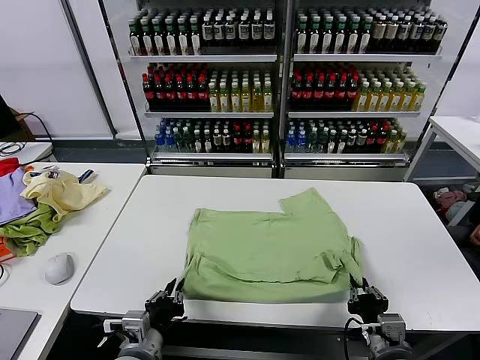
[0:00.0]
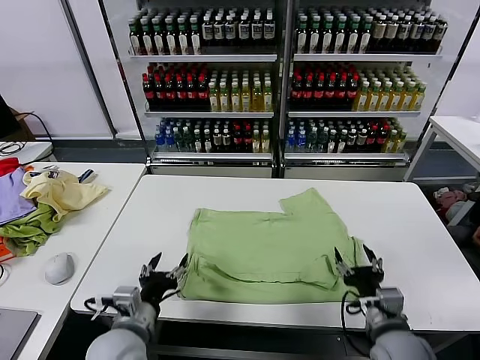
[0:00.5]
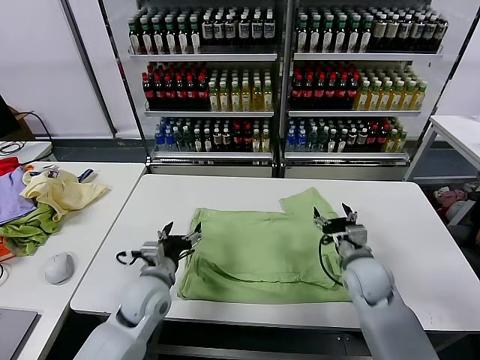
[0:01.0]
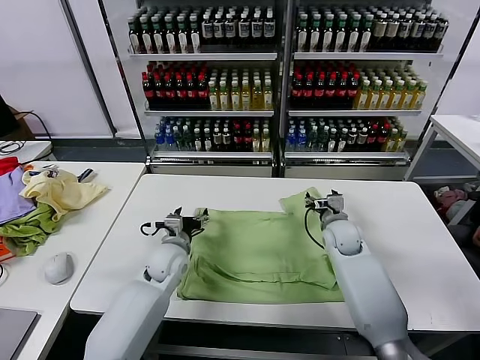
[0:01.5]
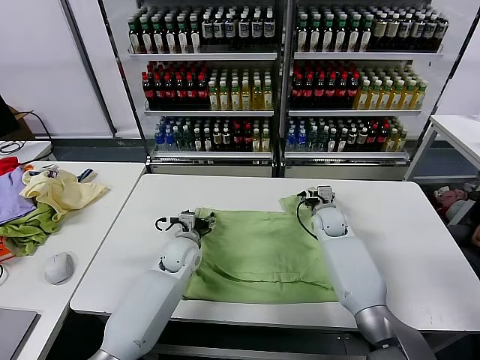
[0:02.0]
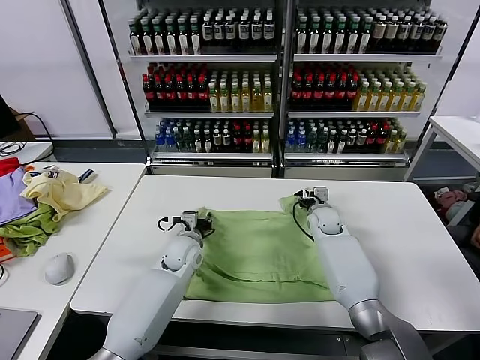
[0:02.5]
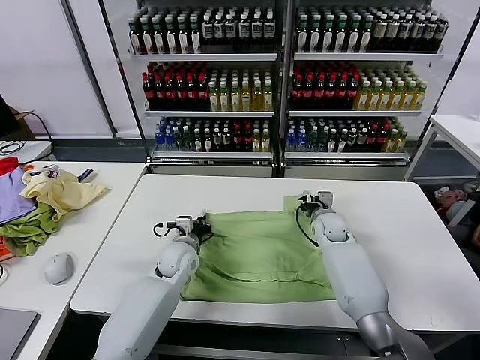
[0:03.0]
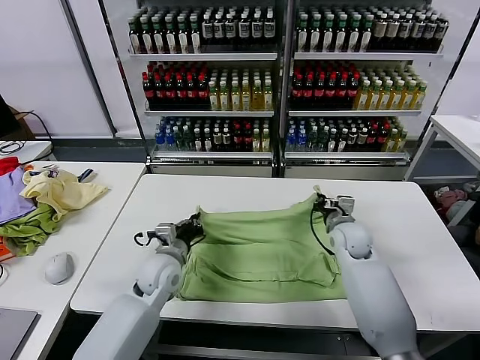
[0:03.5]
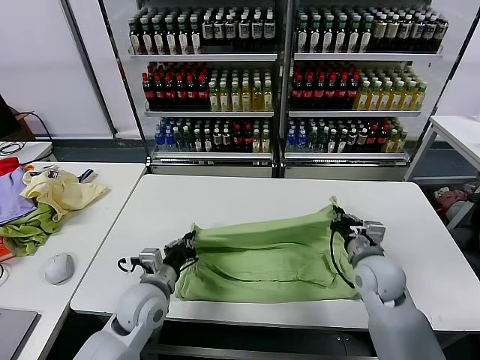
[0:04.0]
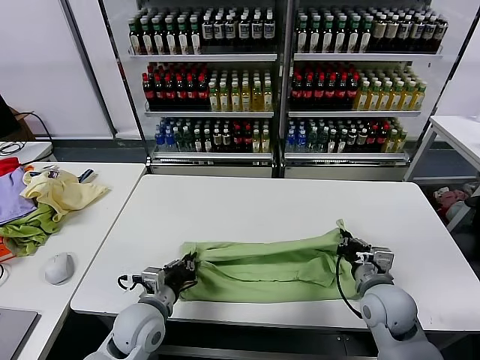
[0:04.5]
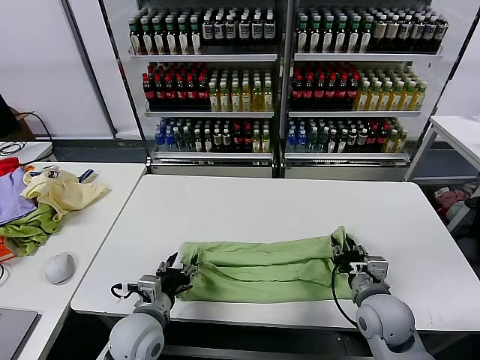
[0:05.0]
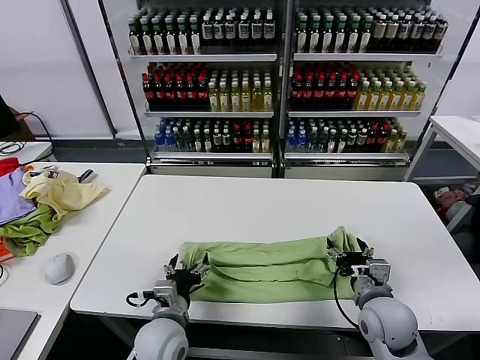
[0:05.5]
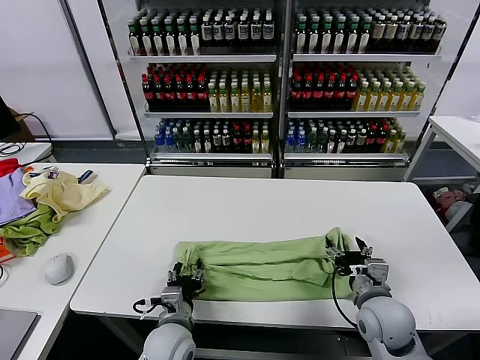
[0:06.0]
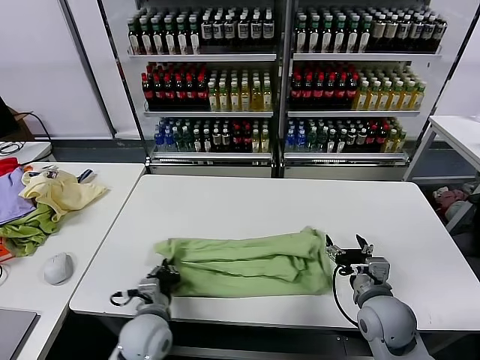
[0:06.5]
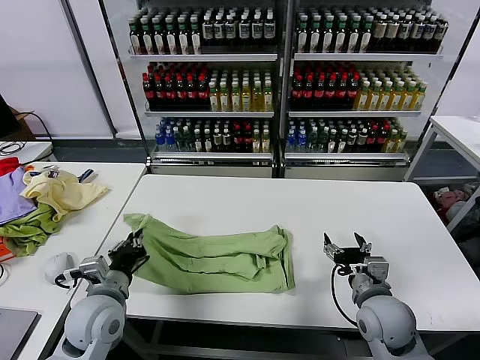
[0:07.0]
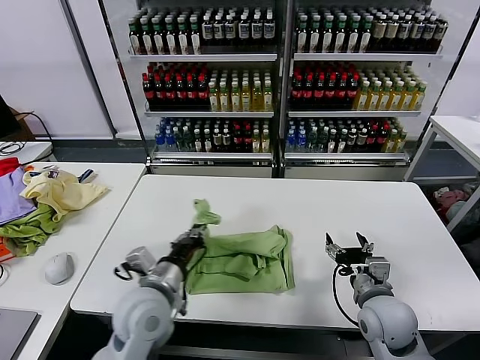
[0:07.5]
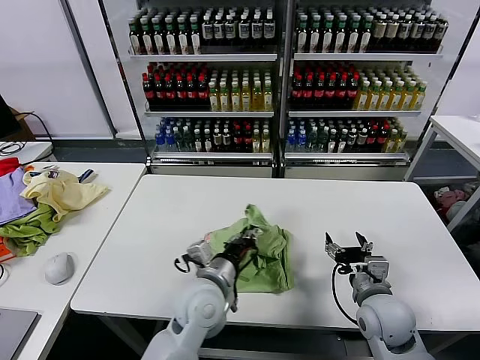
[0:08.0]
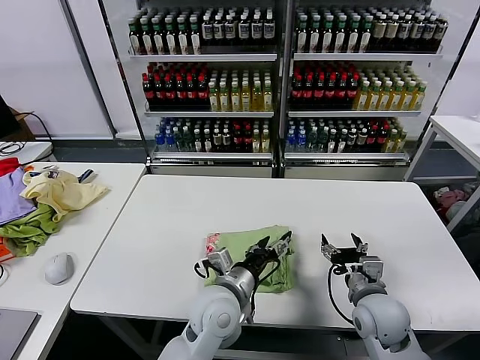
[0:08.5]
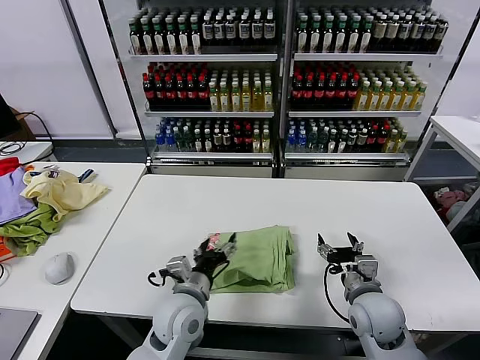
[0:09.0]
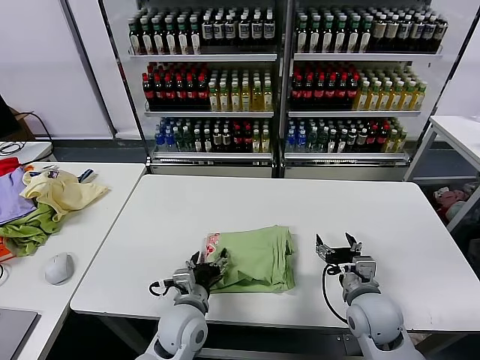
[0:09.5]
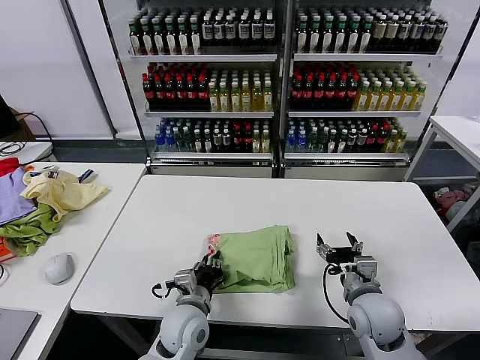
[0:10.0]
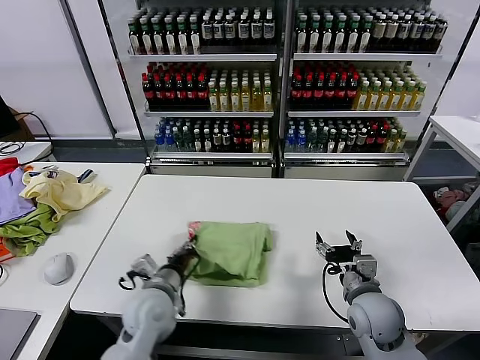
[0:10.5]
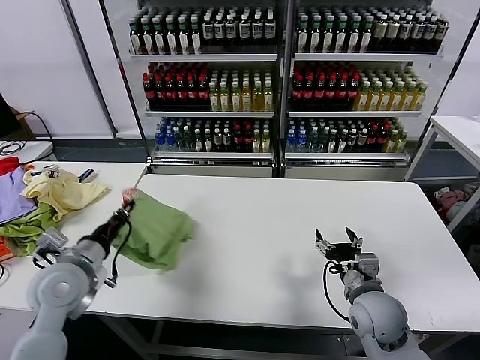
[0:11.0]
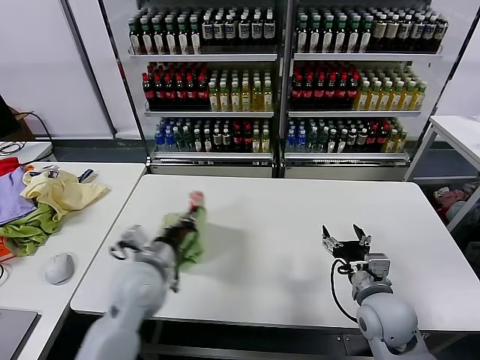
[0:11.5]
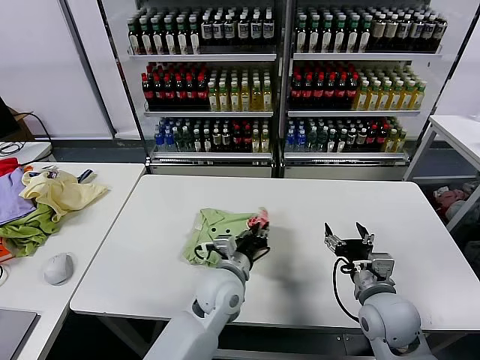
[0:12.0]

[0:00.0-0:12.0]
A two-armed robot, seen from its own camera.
Task of the whole recording: fold and organize the clothes.
Step, 0:00.5 to 0:02.5: use both grippers simultaneously to clamp the upper edge of the clothing fabric.
Step, 0:03.0 to 0:05.0: use both grippers to drag the upper edge of the fabric backward and fold it over the lower edge.
Step, 0:05.5 to 0:06.0: use the left gripper to clamp the left edge of the fabric.
Step, 0:06.5 to 0:08.0: use the left gripper to drag the left edge of the fabric to the left and folds it over the right edge.
0:00.0 to 0:02.0: Both grippers move forward, roughly 35 cm. The right gripper opens its fingers. The left gripper opens.
0:02.0 to 0:04.0: The grippers both shift backward by roughly 20 cm. The left gripper closes; the right gripper closes.
0:04.0 to 0:06.0: The left gripper moves backward, downward and to the right, some 10 cm, and opens. Meanwhile the right gripper shifts approximately 5 cm backward, and opens up.
0:06.0 to 0:08.0: The left gripper heads upward, covering some 10 cm, moves some 15 cm to the left and comes back, and closes.
0:08.0 to 0:10.0: The left gripper moves downward, approximately 10 cm, and opens, then closes again.
0:10.0 to 0:12.0: The left gripper heads upward and forward, covering approximately 10 cm, and reaches roughly 20 cm to the left, then returns.

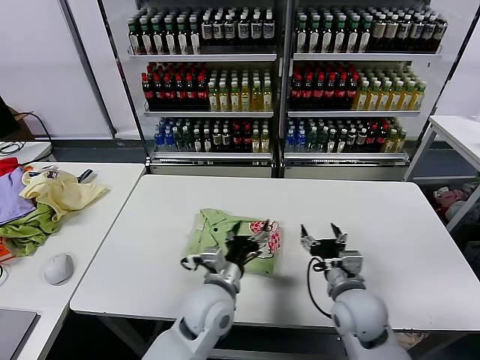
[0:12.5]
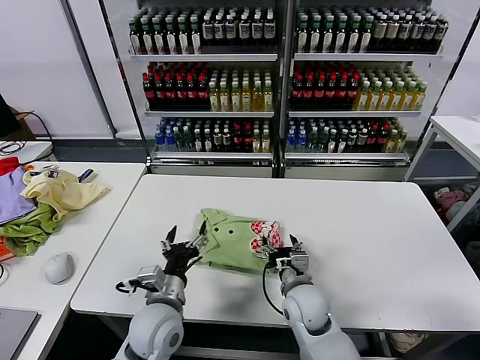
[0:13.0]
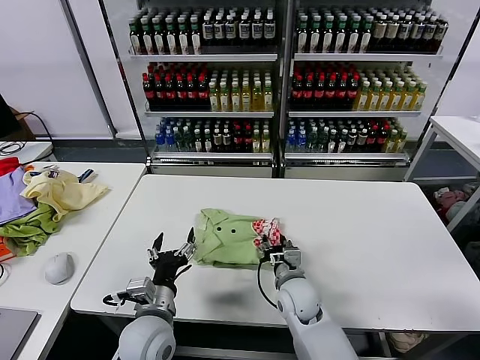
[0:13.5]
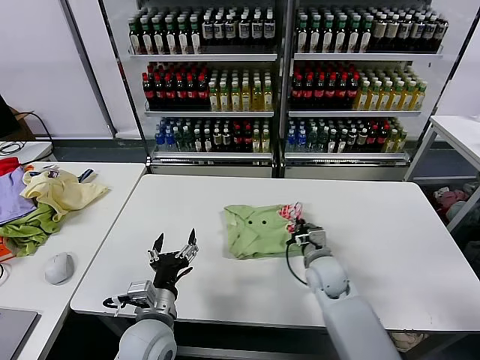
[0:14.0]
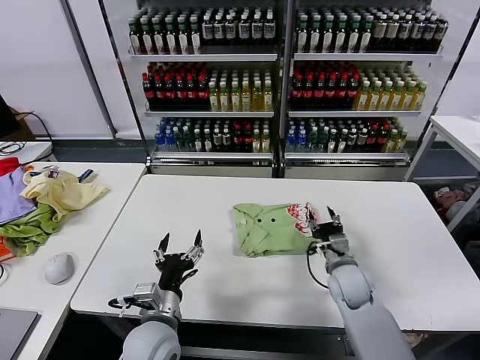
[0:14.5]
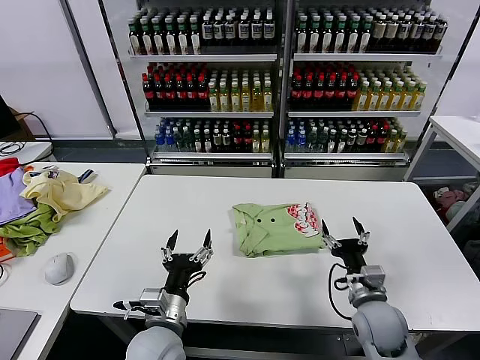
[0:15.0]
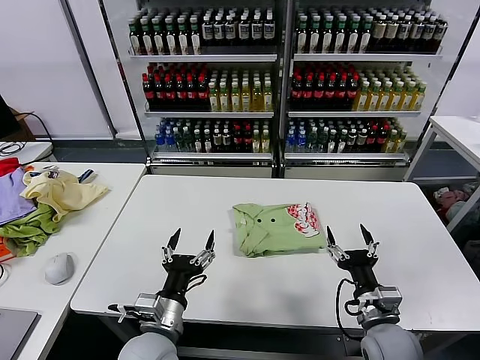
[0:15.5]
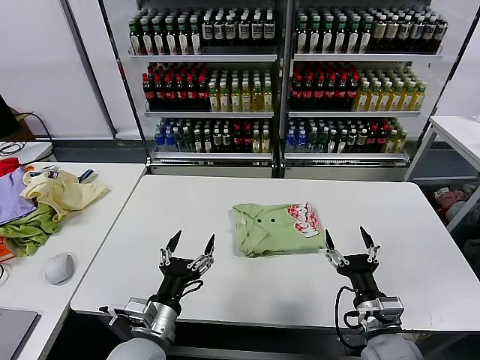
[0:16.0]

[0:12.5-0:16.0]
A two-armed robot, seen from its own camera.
Task of the whole recording: fold and organize the clothes.
Step, 0:12.5 to 0:14.0: Drag the clothes to the center of the table.
0:12.5 to 0:14.5: The right gripper is displaced forward and downward by about 10 cm, travels to the left and back again, roughly 10 cm each way, and closes its fingers. The left gripper goes about 15 cm to the left and backward.
0:14.5 to 0:16.0: The right gripper heads backward, covering approximately 15 cm, and opens its fingers.

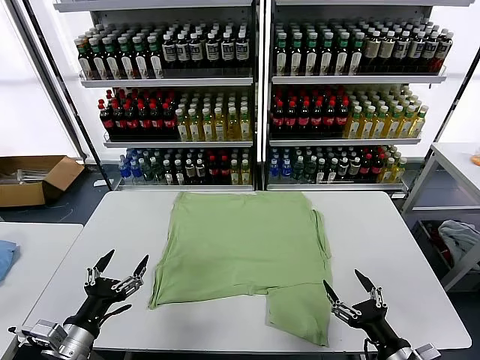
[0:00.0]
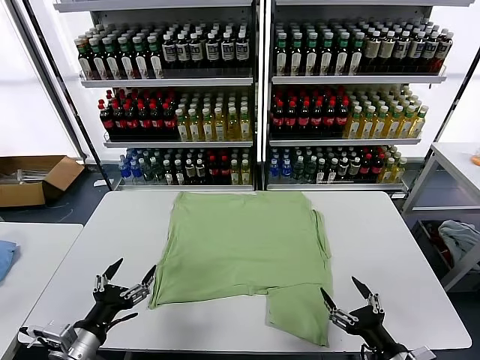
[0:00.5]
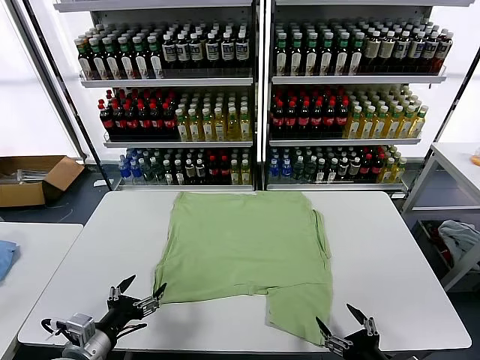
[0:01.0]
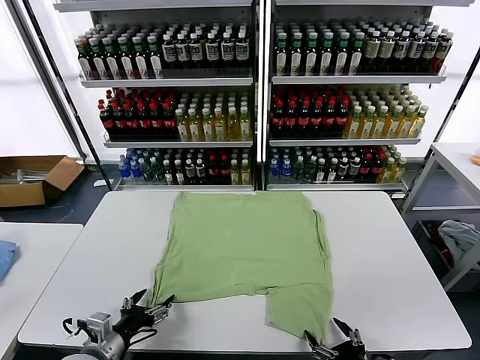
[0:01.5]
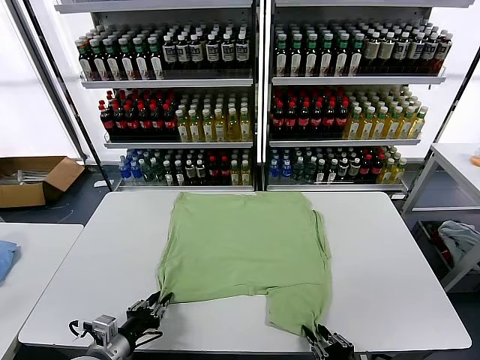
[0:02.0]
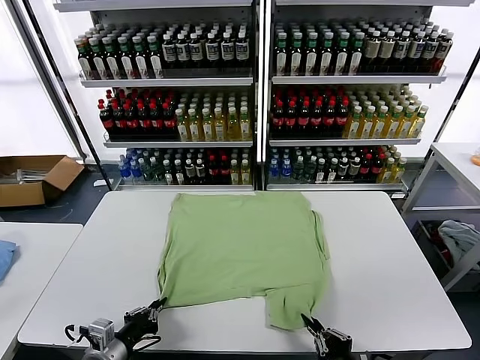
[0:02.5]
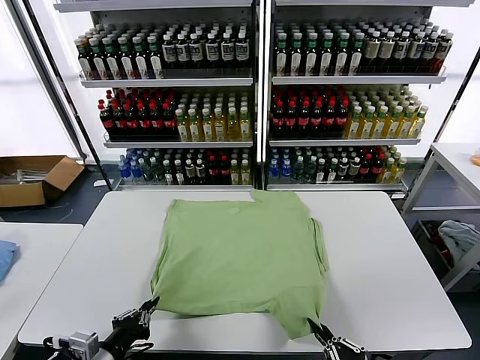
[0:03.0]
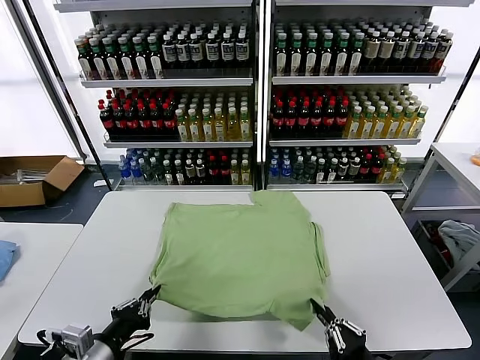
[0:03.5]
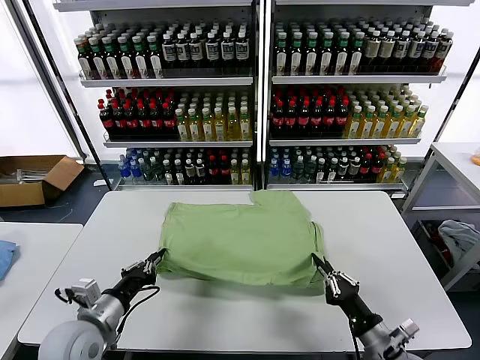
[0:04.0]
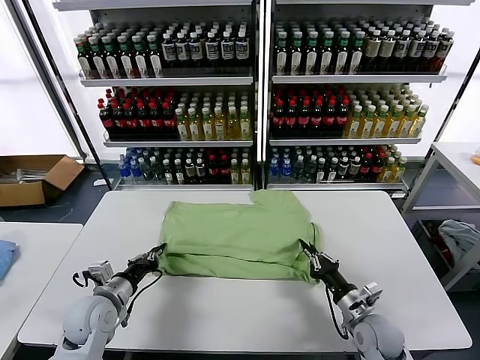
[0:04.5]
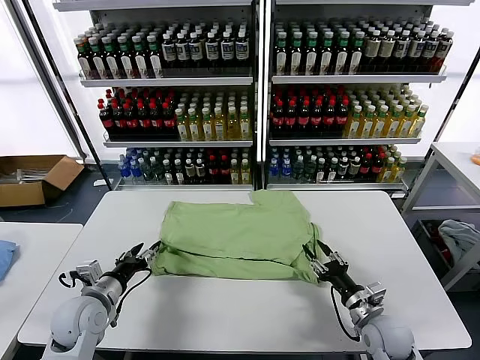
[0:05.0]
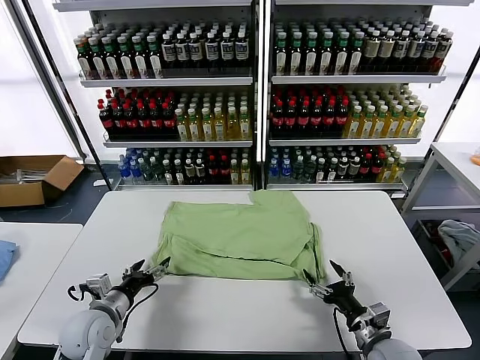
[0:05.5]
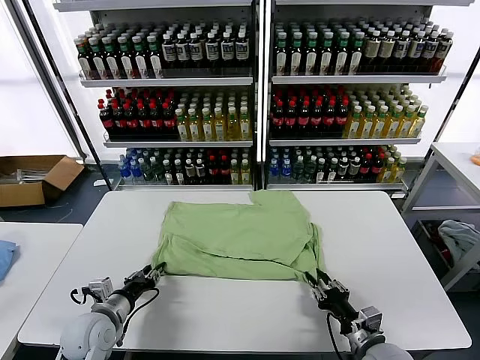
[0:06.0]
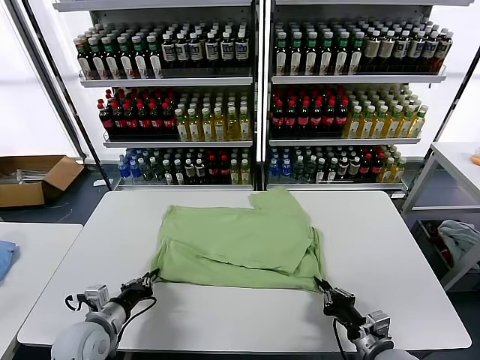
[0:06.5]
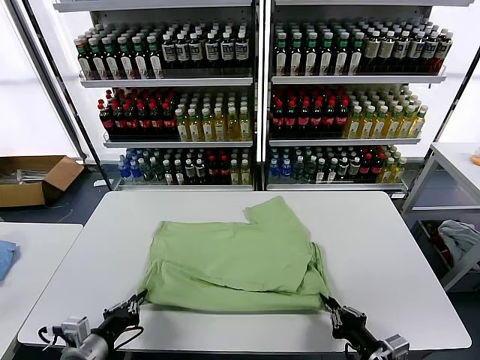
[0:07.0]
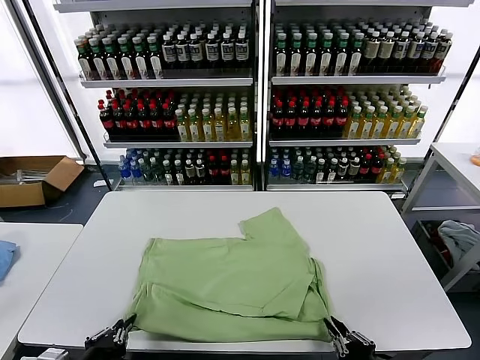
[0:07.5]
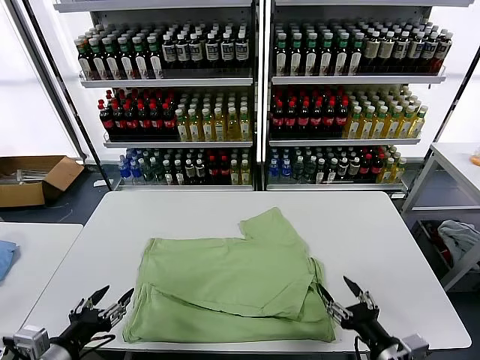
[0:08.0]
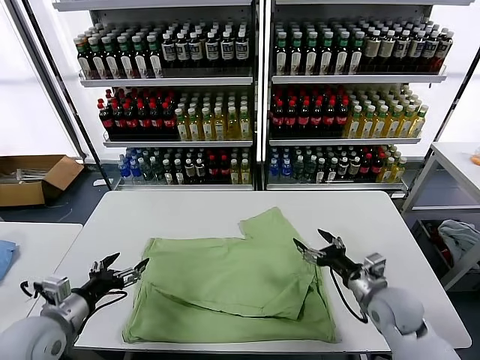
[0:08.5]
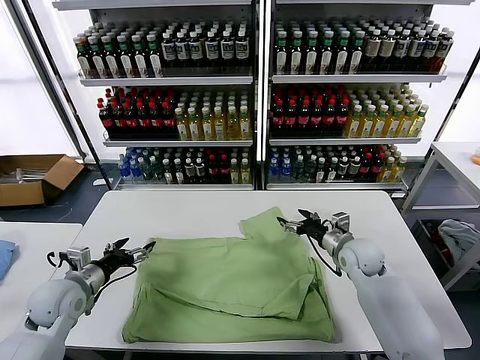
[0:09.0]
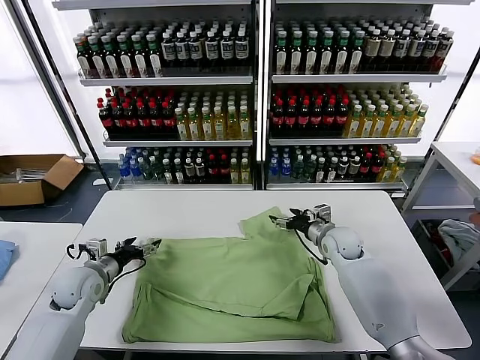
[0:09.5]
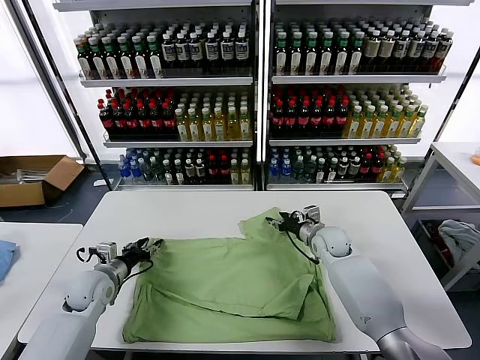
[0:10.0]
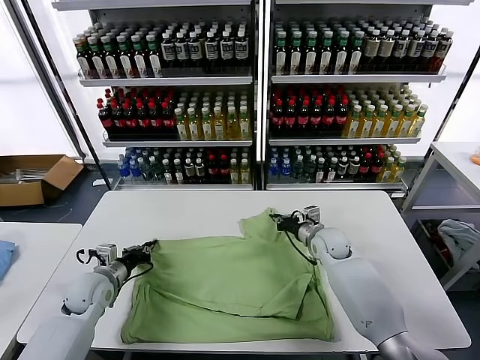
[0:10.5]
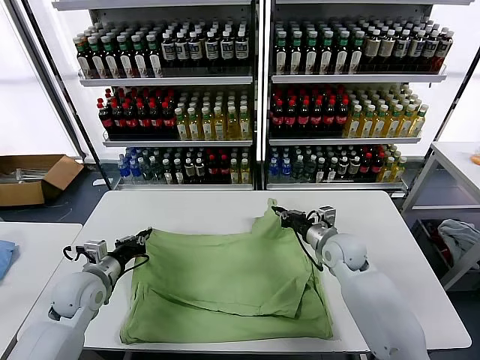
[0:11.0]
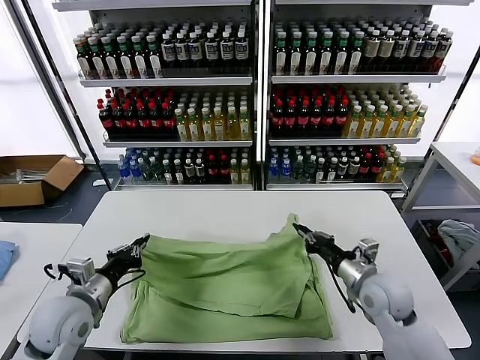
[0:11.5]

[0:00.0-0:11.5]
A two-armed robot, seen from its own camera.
Task of the whole recording: fold and organize the clothes.
Step, 0:00.0 to 0:02.0: use both grippers simultaneously to clamp the lower edge of the clothing fabric.
Step, 0:02.5 to 0:05.0: use both grippers to drag the lower edge of the fabric forward and fold it over the upper edge.
Step, 0:05.5 to 0:07.5: Drag the clothes downward with both gripper.
Step, 0:08.0 to 0:10.5: use both grippers simultaneously to clamp the upper edge of the clothing fabric.
0:02.0 to 0:04.0: The right gripper is displaced forward by about 10 cm, while the left gripper travels upward and forward by about 10 cm.
0:04.0 to 0:06.0: The right gripper goes forward and returns, some 10 cm each way, and opens, then closes once more, while the left gripper moves downward, roughly 5 cm, and opens, then closes once more.
0:06.0 to 0:07.5: Both grippers travel together backward and upward, roughly 15 cm.
0:07.5 to 0:09.5: The right gripper heads forward, covering approximately 40 cm, and opens its fingers; the left gripper is displaced forward by about 25 cm, and opens up.
0:09.5 to 0:11.5: The left gripper moves backward and upward, roughly 10 cm, and closes its fingers, while the right gripper moves backward, approximately 15 cm, and closes its fingers.
